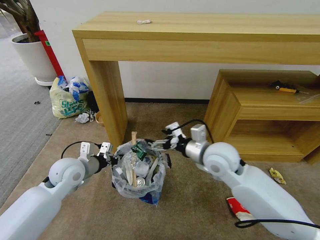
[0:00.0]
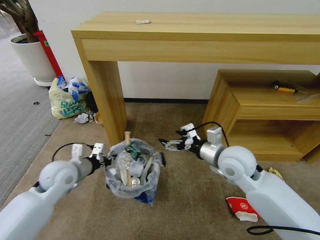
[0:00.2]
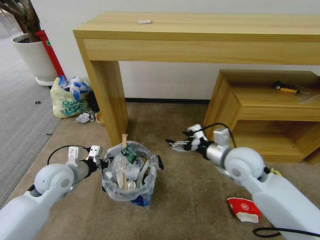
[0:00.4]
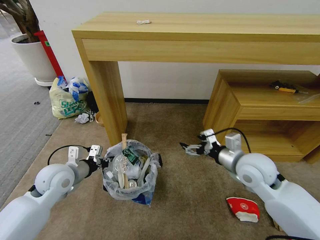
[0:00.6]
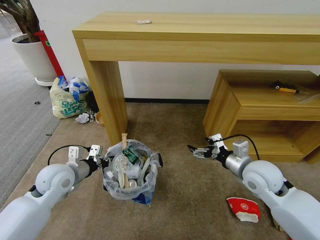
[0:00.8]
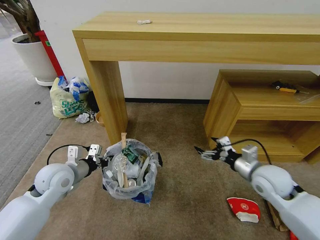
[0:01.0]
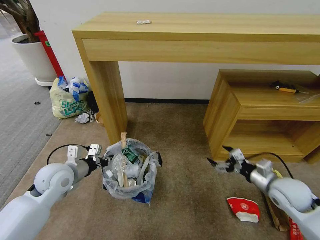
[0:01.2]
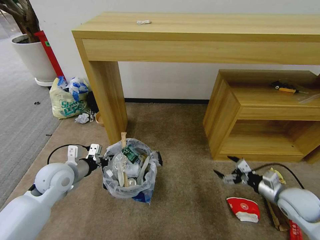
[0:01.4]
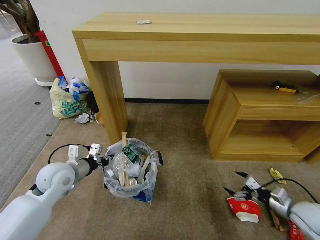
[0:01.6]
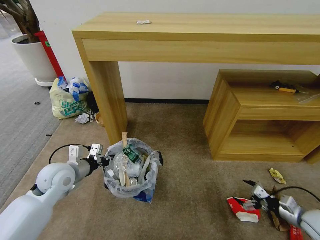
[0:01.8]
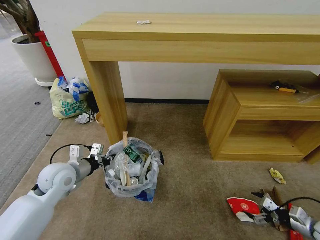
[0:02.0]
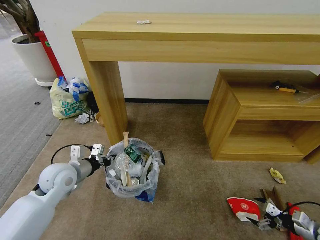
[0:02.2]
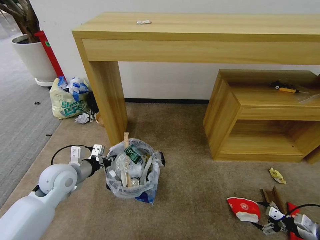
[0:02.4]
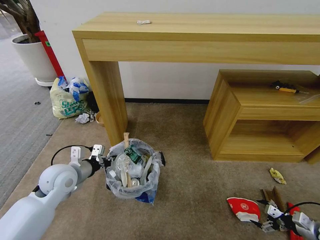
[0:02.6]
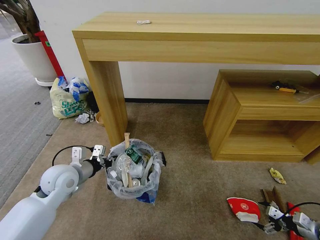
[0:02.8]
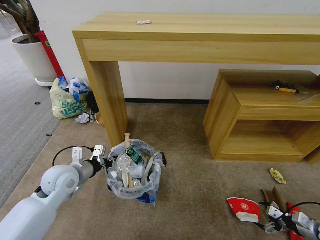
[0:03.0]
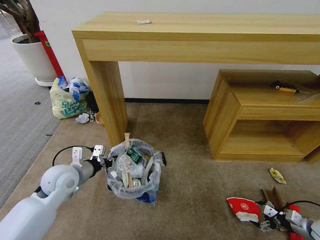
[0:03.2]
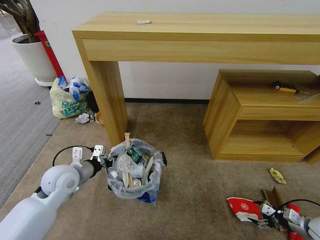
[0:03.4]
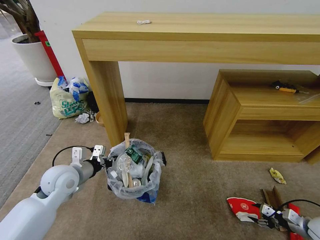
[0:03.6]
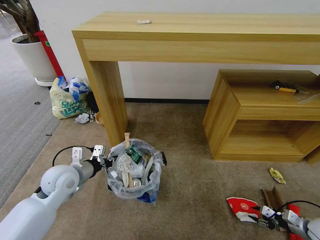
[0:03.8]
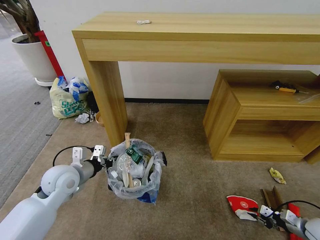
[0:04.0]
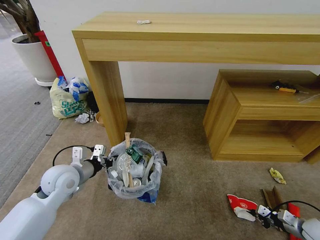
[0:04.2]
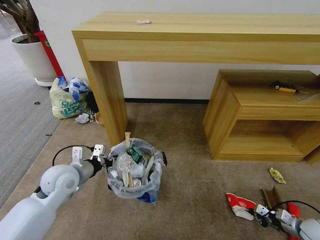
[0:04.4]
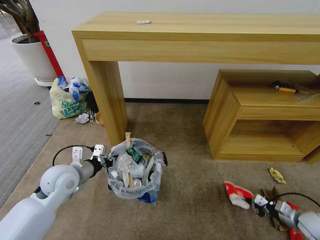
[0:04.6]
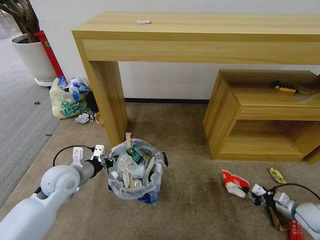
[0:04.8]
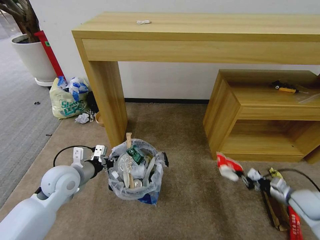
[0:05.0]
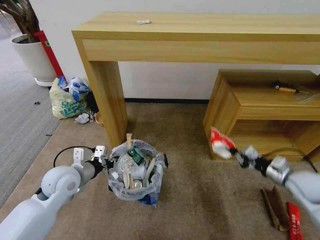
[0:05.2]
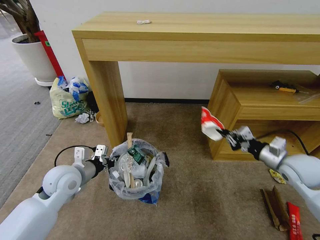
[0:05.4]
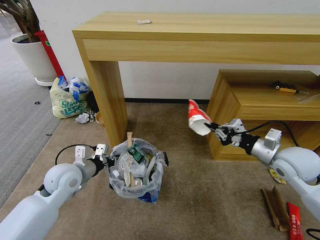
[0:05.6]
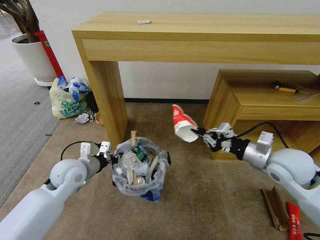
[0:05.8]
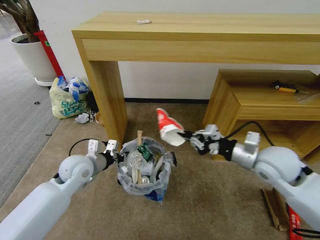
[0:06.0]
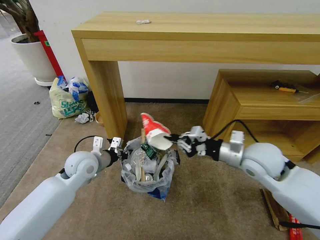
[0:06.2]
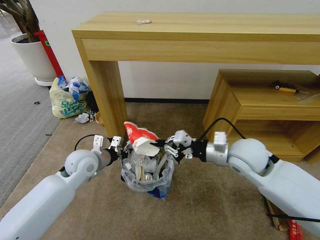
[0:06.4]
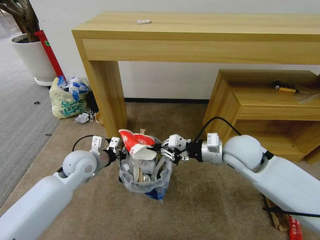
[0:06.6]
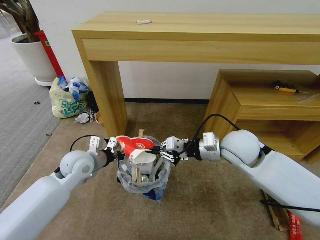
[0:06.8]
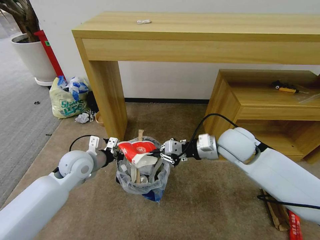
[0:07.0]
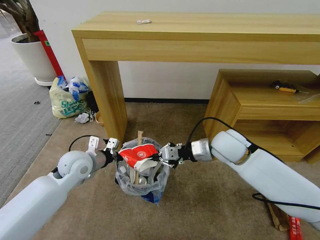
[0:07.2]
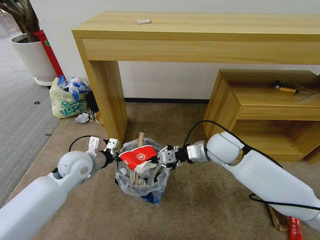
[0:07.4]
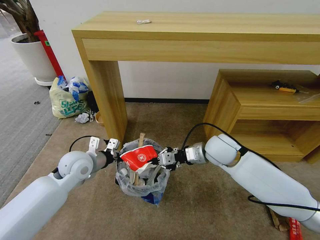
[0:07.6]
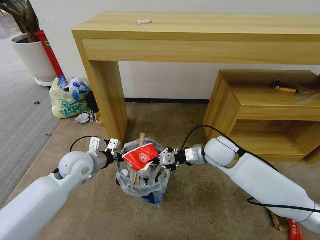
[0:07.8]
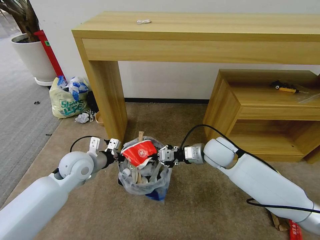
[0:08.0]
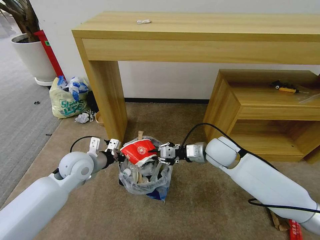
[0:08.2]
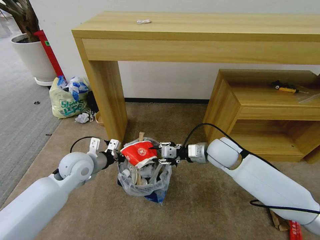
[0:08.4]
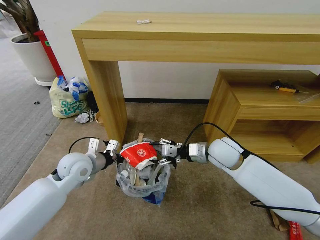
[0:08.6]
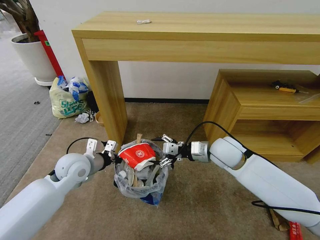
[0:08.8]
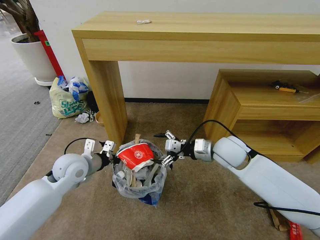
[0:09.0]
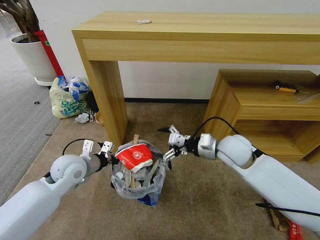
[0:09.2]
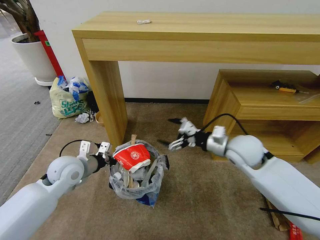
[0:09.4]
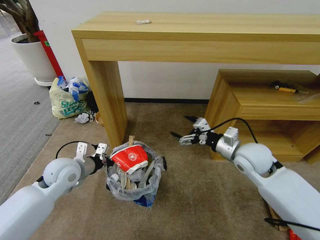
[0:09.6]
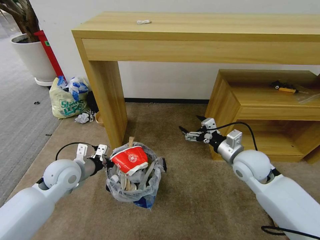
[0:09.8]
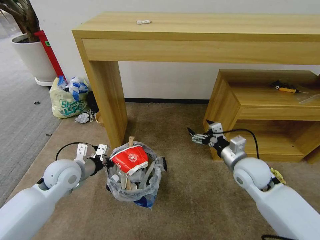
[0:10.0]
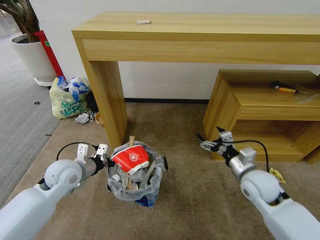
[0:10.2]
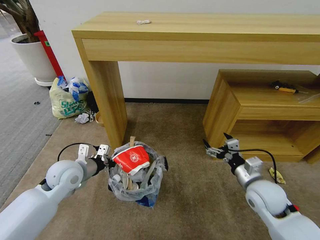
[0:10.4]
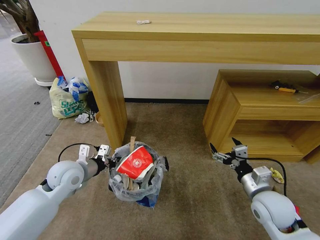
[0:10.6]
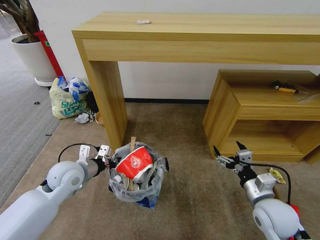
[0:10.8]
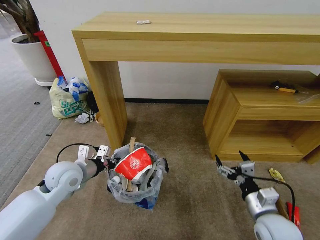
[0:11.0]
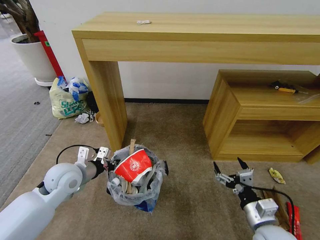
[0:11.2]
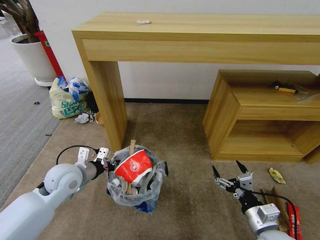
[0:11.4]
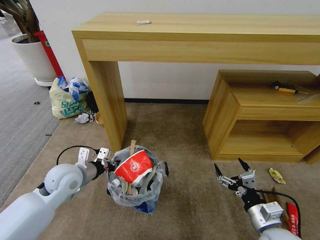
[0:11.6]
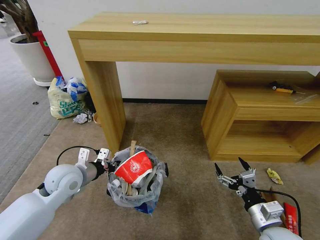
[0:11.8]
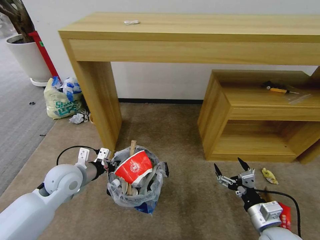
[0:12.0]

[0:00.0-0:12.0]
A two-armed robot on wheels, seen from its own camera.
Task of the whole recording: Pick up the trash bin and place the garbage on the floor into it.
0:00.0 to 0:01.6: The right gripper goes approximately 35 cm to the right and downward.
0:01.6 to 0:03.0: The right gripper moves to the right and downward, about 15 cm.
0:03.0 to 0:04.4: The right gripper moves about 5 cm, and closes.
0:04.4 to 0:06.0: The left gripper ends up about 5 cm from where it was. Meanwhile the right gripper travels upward and to the left by roughly 40 cm.
0:06.0 to 0:07.6: The right gripper goes roughly 15 cm to the left and forward.
0:07.6 to 0:09.0: The right gripper opens its fingers.
0:09.0 to 0:10.4: The right gripper moves backward, to the right and downward, some 15 cm.
0:10.4 to 0:12.0: The right gripper heads backward, covering some 10 cm.

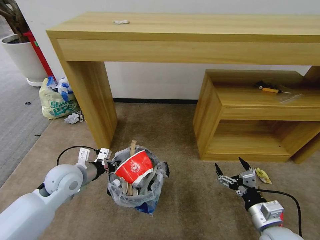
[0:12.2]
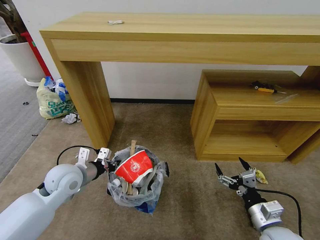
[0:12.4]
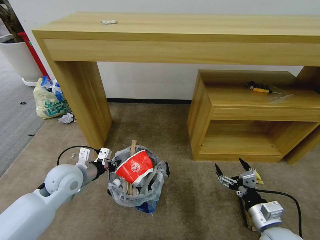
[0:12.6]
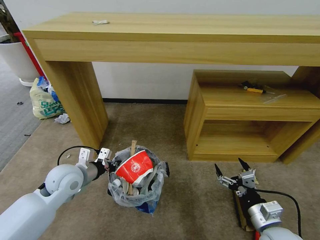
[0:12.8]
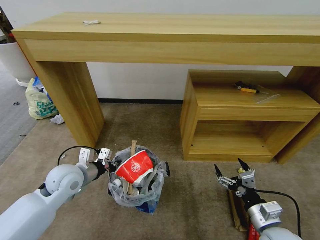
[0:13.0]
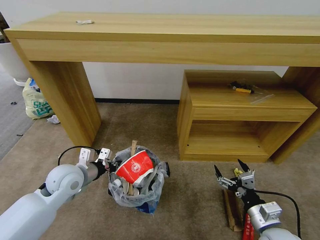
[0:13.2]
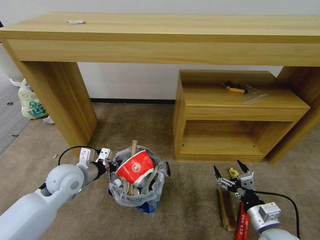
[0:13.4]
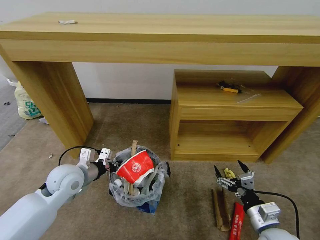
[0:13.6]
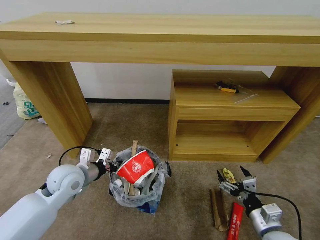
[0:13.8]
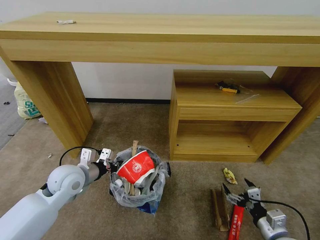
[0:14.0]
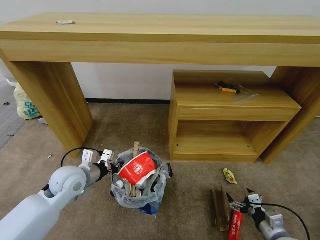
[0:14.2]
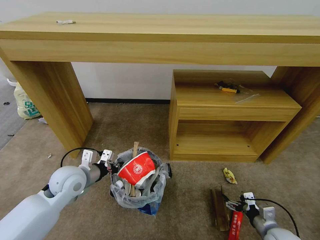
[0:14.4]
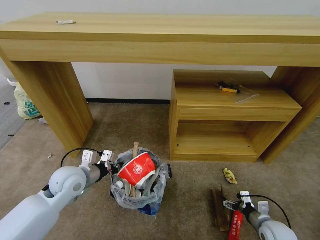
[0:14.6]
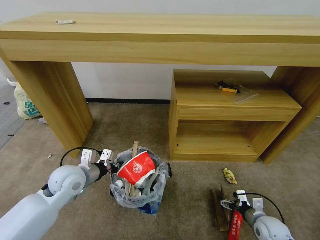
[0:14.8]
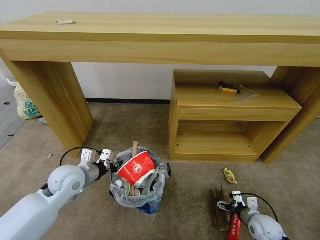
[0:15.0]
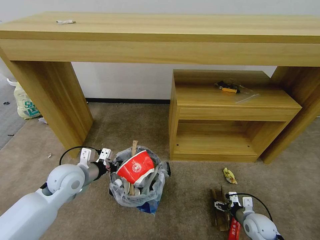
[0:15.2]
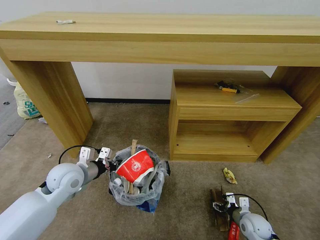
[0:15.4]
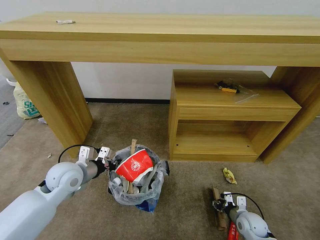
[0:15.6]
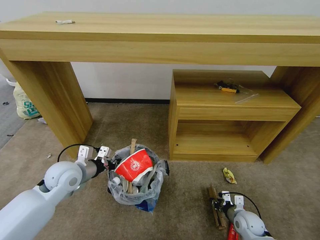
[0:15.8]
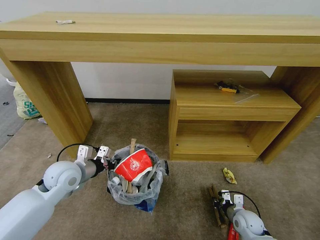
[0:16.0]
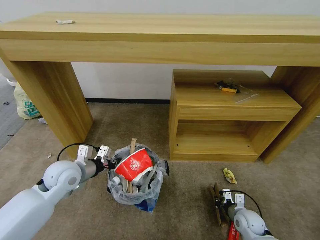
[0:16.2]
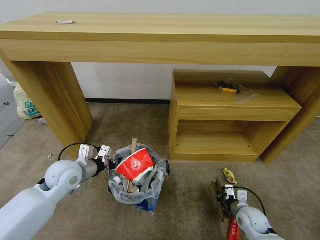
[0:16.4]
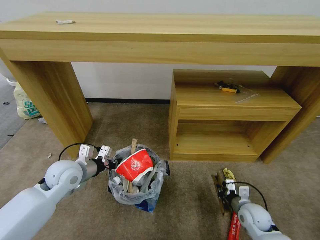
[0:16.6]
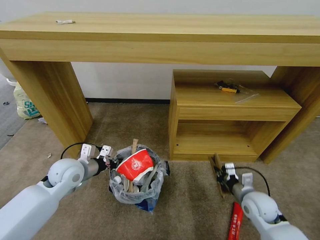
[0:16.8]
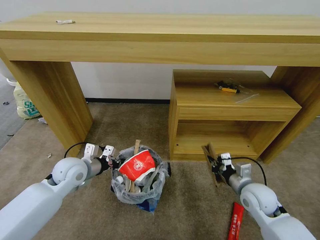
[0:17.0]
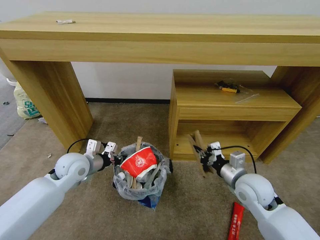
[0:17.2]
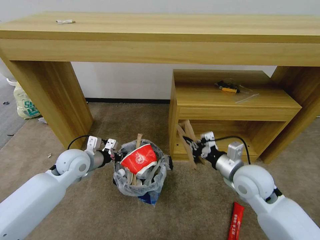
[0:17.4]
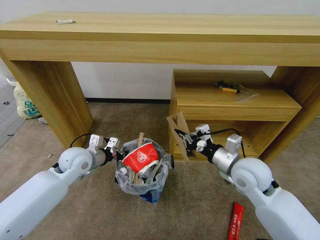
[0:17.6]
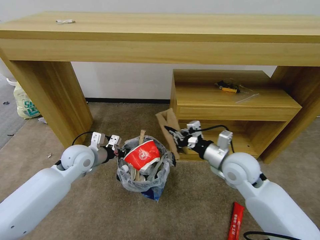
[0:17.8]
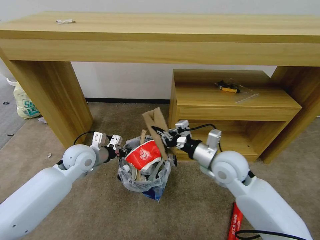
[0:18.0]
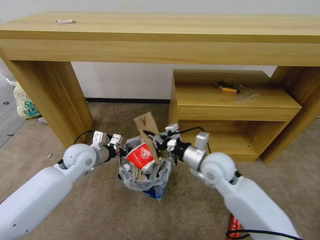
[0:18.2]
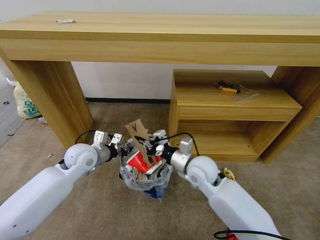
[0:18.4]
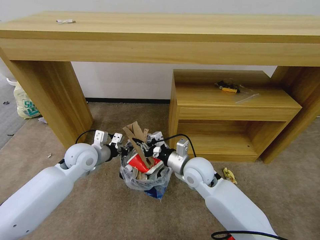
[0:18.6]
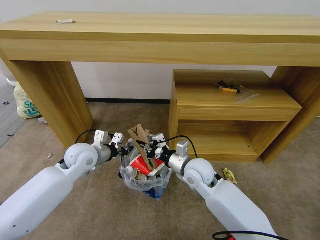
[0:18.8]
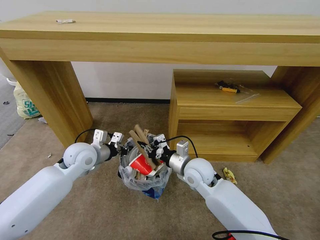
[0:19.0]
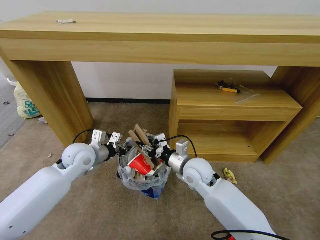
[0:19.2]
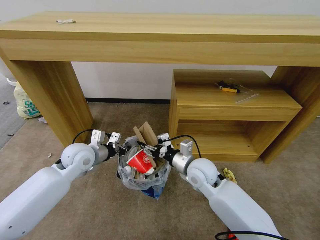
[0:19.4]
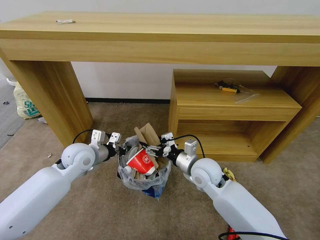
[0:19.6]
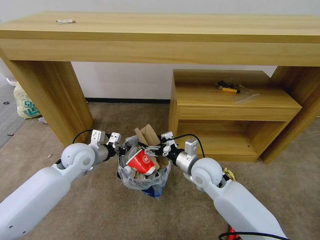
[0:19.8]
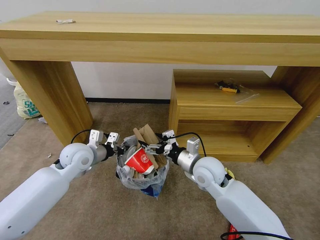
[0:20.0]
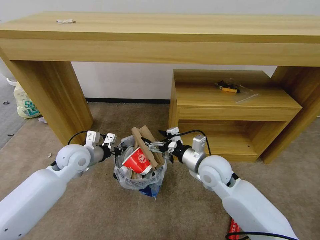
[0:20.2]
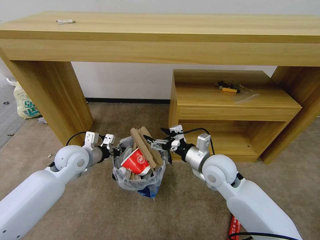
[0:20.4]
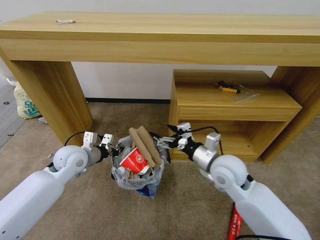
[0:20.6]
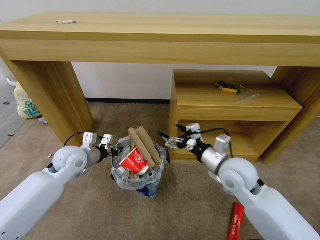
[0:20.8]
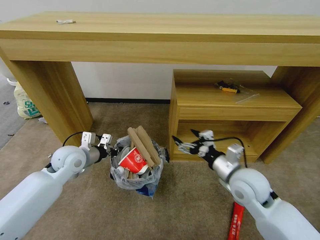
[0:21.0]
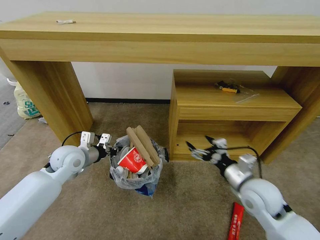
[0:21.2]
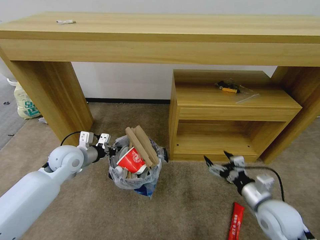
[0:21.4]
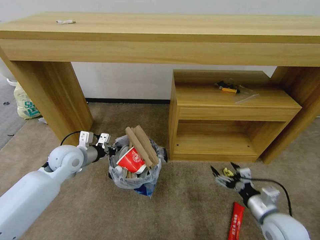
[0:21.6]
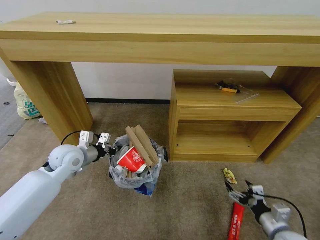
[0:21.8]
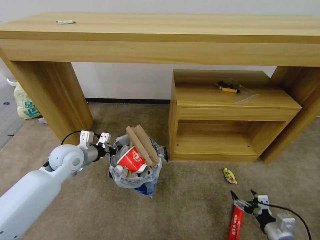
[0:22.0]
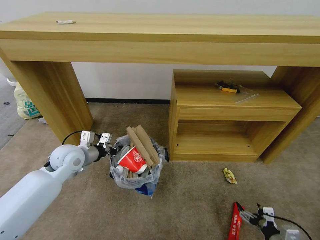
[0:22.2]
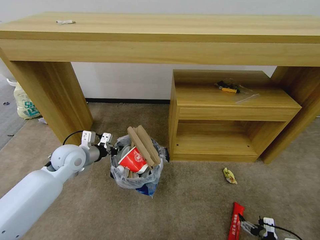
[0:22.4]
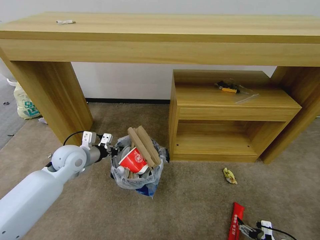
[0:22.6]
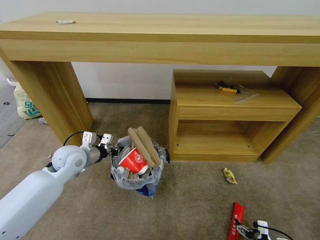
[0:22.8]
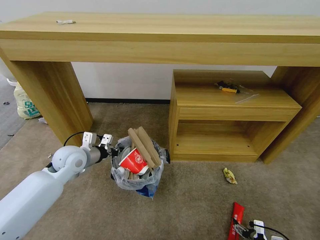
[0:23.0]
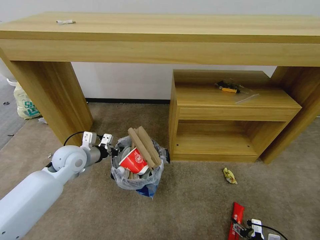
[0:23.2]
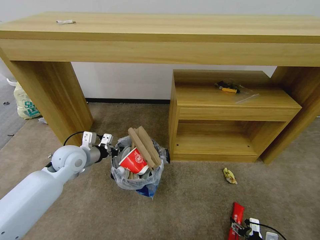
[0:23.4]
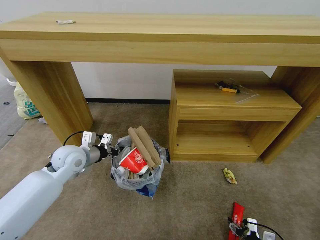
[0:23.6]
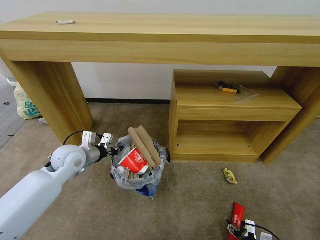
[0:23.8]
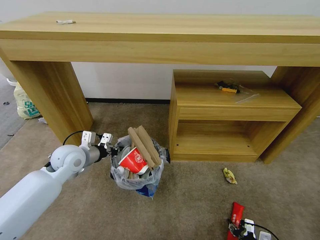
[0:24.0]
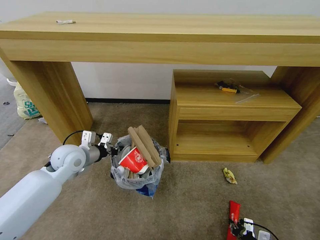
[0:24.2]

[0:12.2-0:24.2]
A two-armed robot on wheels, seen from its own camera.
Task of the whole recording: Pick up the trash bin and place the garbage on the floor into it.
0:13.8 to 0:15.2: The right gripper shifts roughly 15 cm downward and forward.
0:15.2 to 0:16.6: The right gripper shifts by some 5 cm, and closes up.
0:16.6 to 0:18.2: The left gripper travels forward by about 5 cm. Meanwhile the right gripper moves upward, to the left and forward, roughly 30 cm.
0:18.2 to 0:19.8: The right gripper opens up.
0:19.8 to 0:21.2: The right gripper is displaced to the right and backward by approximately 15 cm.
0:21.2 to 0:22.6: The right gripper moves downward, backward and to the right, roughly 30 cm.
0:22.6 to 0:24.2: The right gripper ends up some 5 cm from where it was, and closes.
